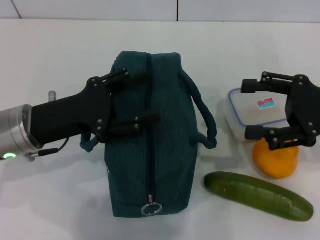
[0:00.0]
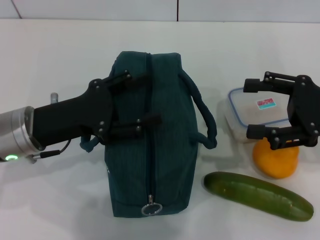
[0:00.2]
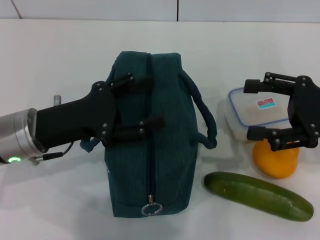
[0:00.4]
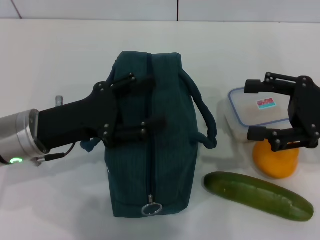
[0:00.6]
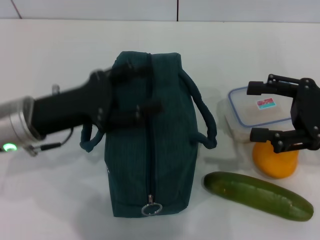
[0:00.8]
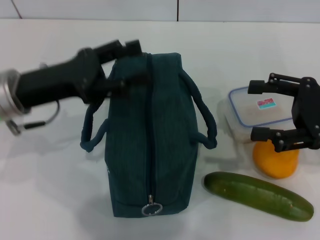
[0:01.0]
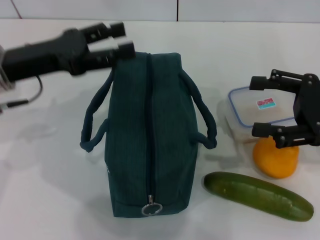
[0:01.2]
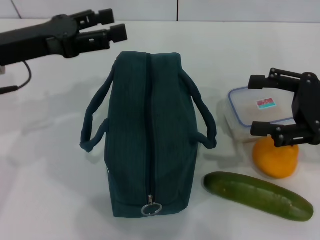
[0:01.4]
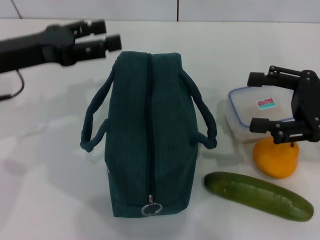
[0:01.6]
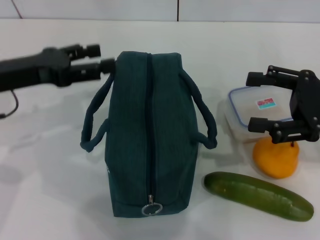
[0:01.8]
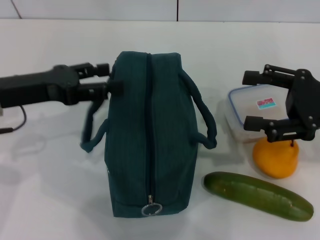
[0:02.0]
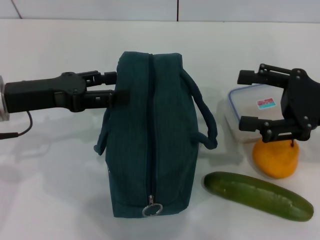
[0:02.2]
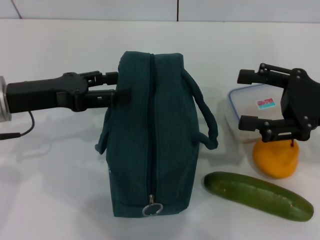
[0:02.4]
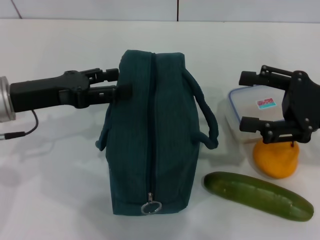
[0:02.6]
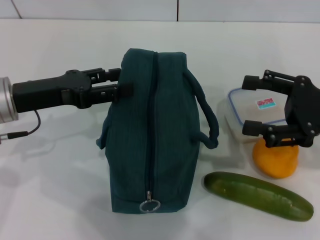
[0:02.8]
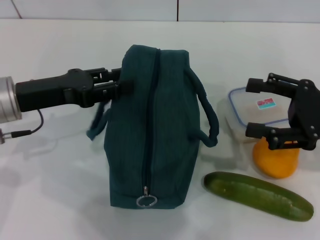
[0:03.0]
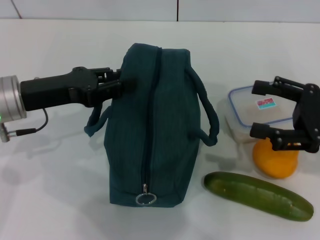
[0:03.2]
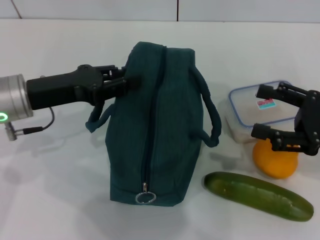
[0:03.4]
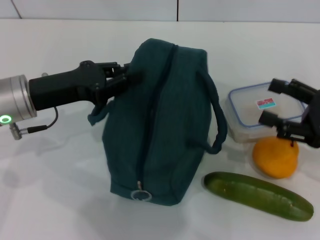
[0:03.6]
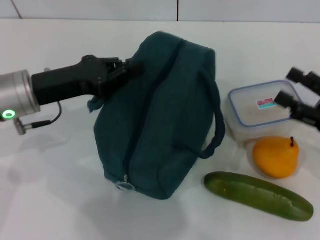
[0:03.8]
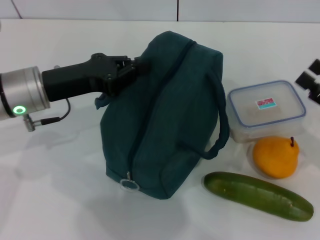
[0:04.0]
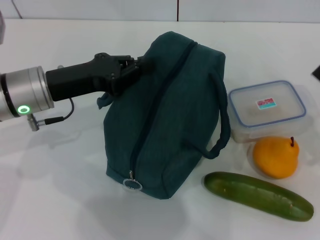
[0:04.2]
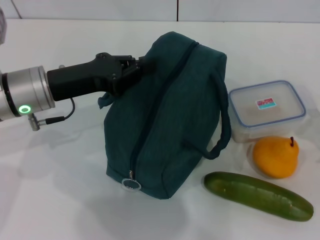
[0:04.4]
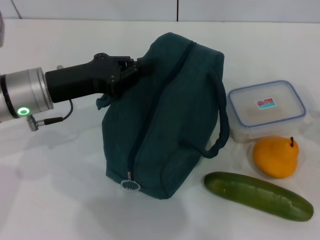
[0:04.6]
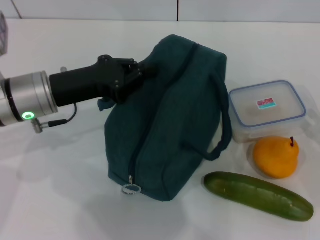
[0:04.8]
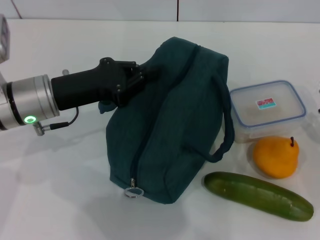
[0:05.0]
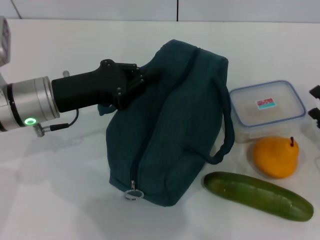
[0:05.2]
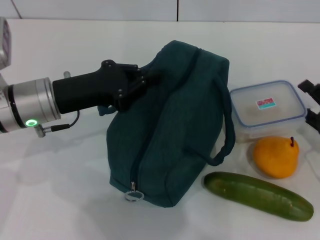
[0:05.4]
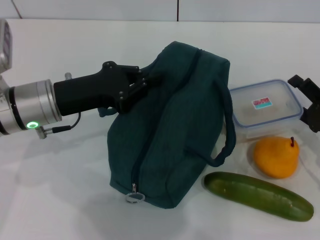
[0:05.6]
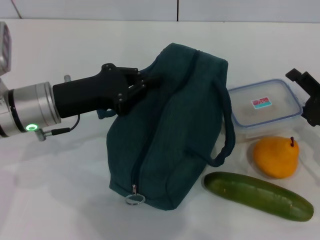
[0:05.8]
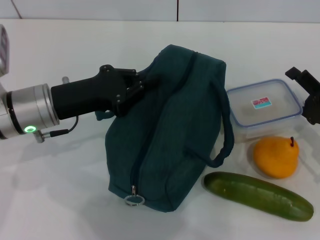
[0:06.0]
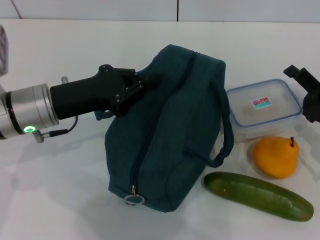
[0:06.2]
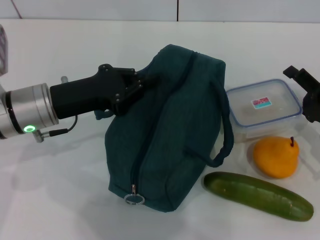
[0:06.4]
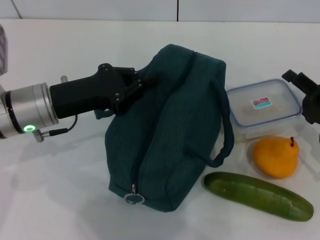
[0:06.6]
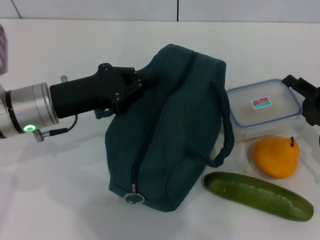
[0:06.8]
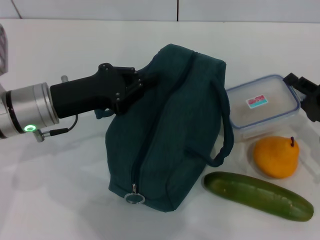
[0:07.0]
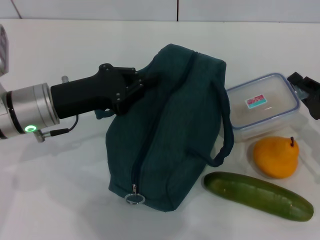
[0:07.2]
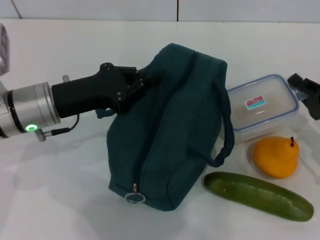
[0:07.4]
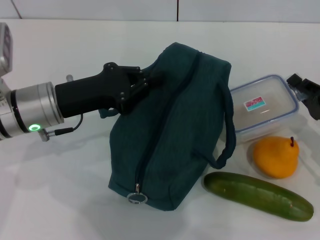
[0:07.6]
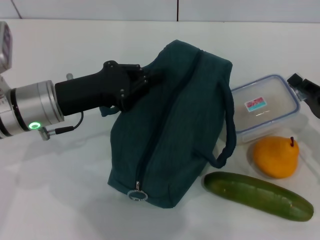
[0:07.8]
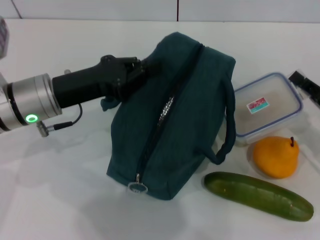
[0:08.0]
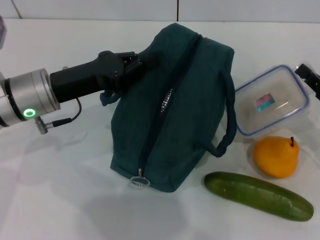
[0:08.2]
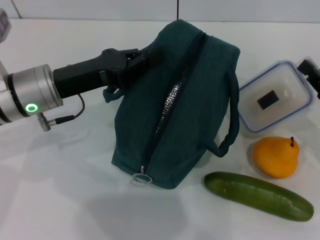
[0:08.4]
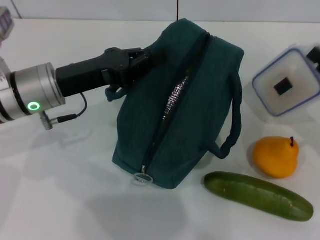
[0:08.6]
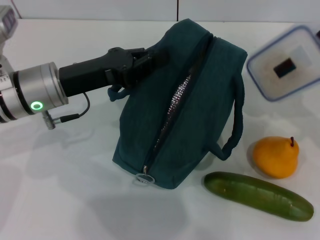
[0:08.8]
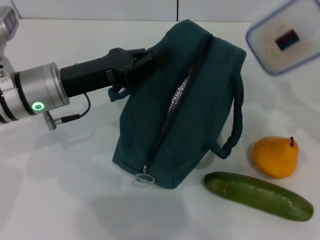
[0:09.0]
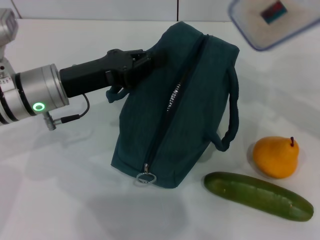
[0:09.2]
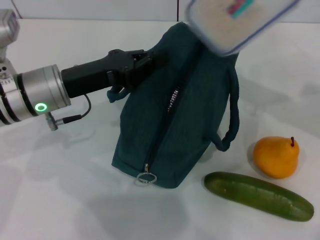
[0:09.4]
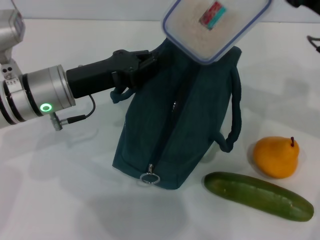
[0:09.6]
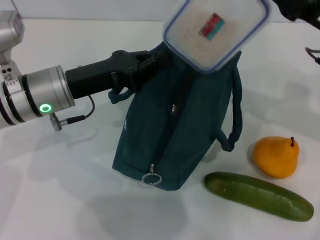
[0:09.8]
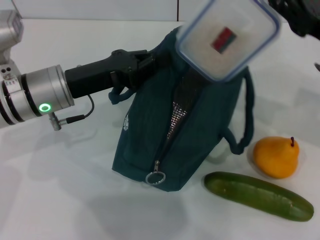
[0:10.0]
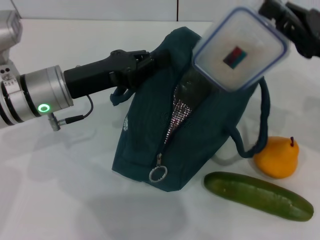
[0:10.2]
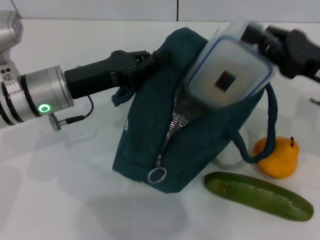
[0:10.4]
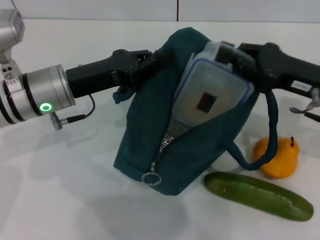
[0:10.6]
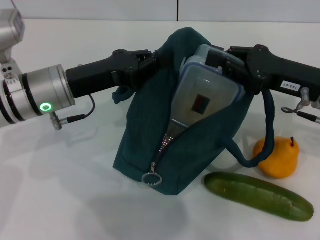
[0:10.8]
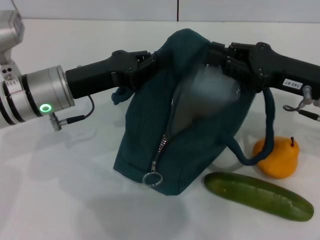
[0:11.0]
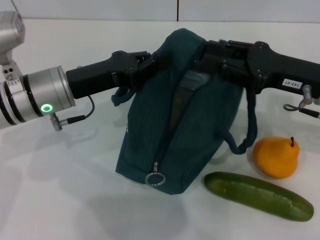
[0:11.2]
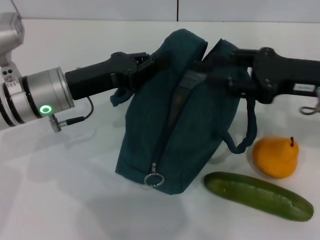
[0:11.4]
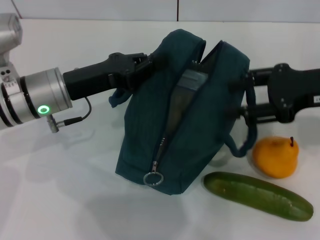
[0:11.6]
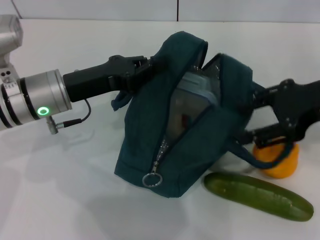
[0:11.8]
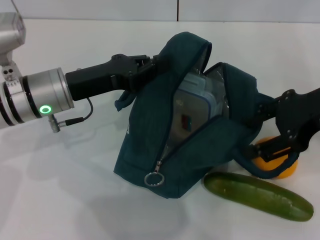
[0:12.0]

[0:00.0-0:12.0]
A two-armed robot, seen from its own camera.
Step, 0:00.0 to 0:04.2: Hold the lunch bag with your left hand.
Step, 0:04.4 to 0:07.2: Pick up the lunch box with your right hand.
Step, 0:07.4 to 0:11.0: Place the lunch box into the lunch bag with your right hand.
0:00.0 to 0:01.6: The left gripper shifts roughly 5 cm upward.
0:01.6 to 0:03.0: The left gripper ends up approximately 5 cm from where it was.
0:03.0 to 0:04.4: The left gripper closes its fingers. Meanwhile the right gripper is displaced downward and to the right by roughly 10 cm.
0:04.4 to 0:06.0: The right gripper moves roughly 5 cm.
0:06.0 to 0:07.6: The right gripper closes its fingers.
0:07.6 to 0:09.0: The right gripper shifts about 10 cm upward.
0:09.0 to 0:10.4: The right gripper is displaced to the left by some 5 cm.
0:10.4 to 0:12.0: The right gripper shifts some 10 cm upward, and opens.

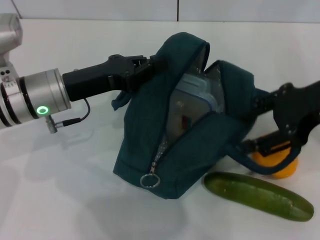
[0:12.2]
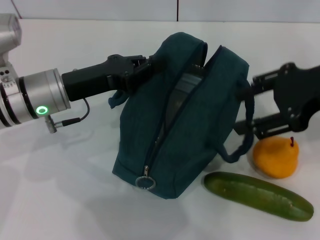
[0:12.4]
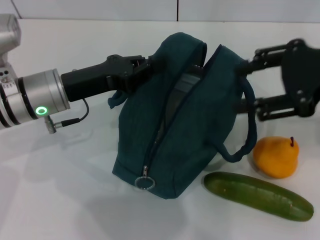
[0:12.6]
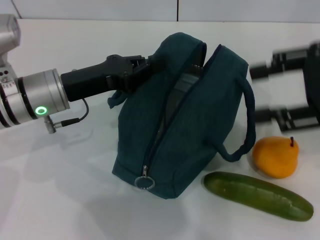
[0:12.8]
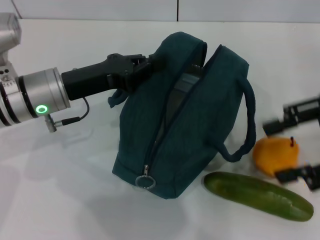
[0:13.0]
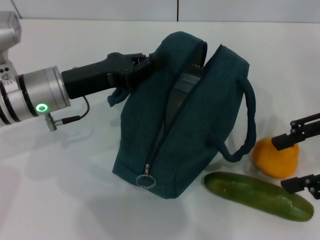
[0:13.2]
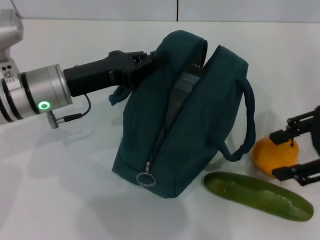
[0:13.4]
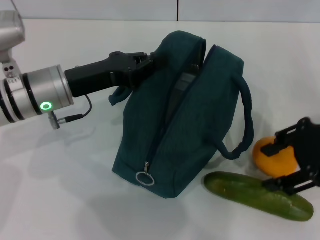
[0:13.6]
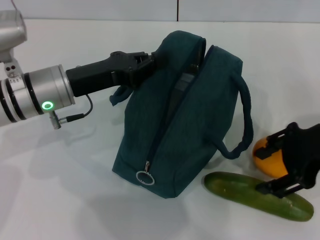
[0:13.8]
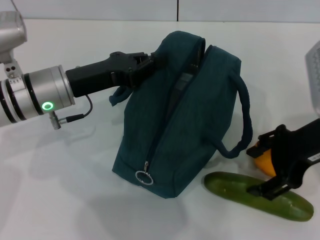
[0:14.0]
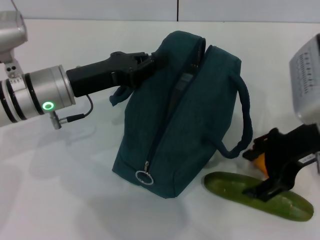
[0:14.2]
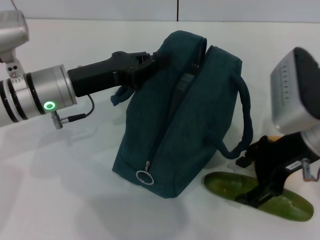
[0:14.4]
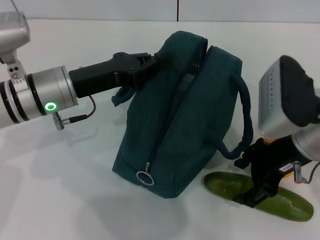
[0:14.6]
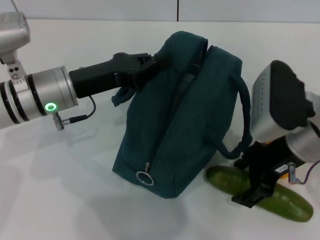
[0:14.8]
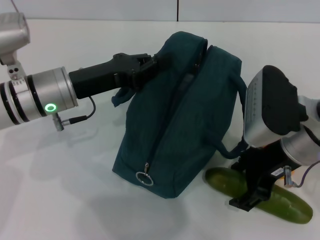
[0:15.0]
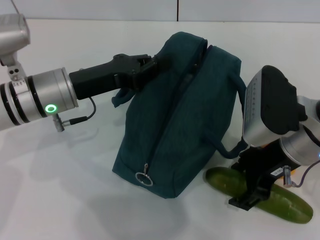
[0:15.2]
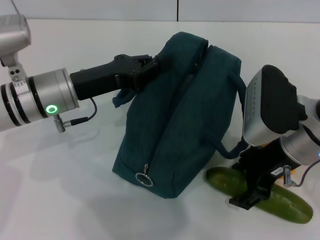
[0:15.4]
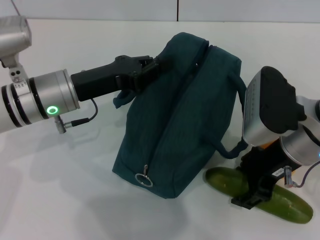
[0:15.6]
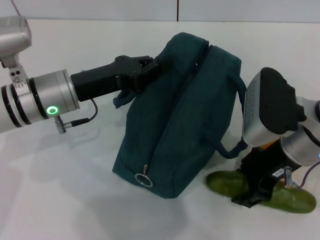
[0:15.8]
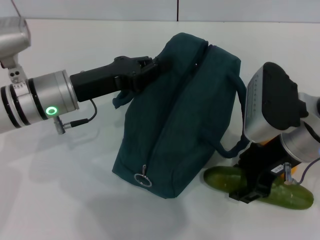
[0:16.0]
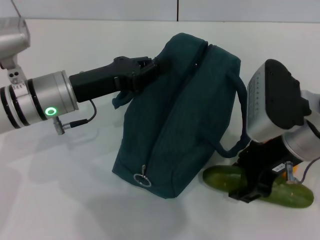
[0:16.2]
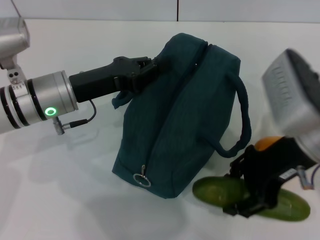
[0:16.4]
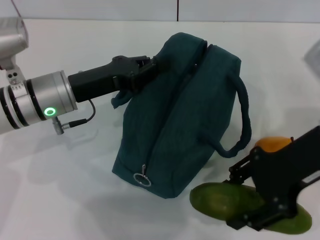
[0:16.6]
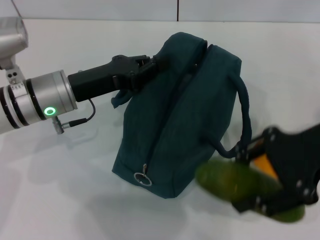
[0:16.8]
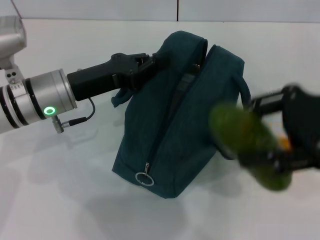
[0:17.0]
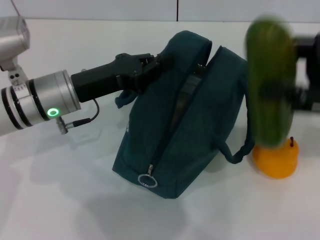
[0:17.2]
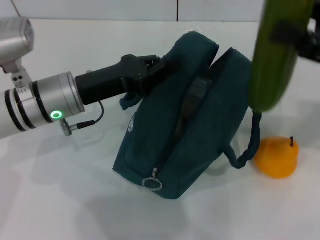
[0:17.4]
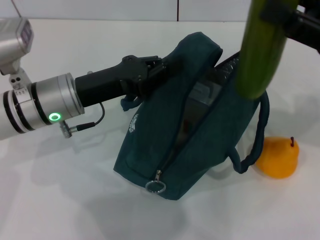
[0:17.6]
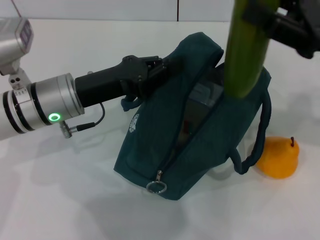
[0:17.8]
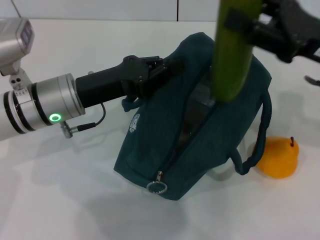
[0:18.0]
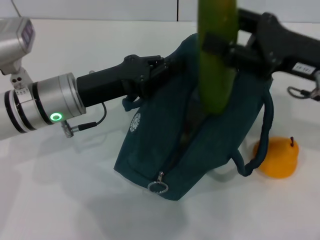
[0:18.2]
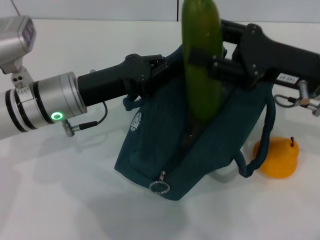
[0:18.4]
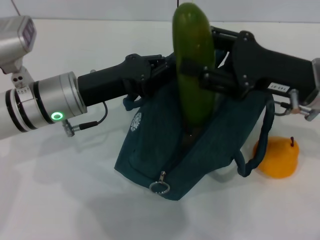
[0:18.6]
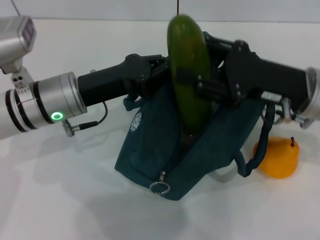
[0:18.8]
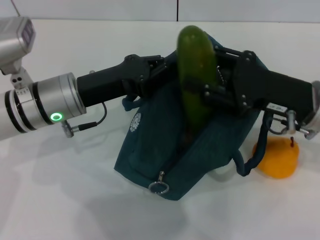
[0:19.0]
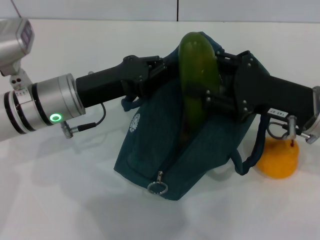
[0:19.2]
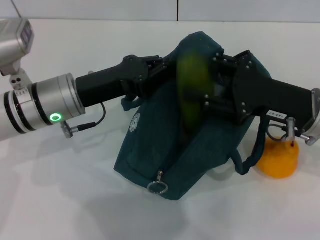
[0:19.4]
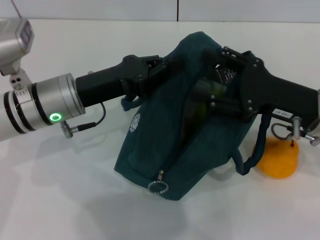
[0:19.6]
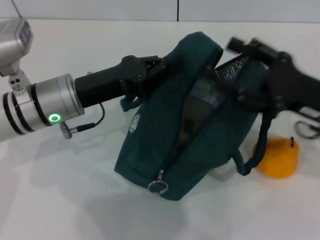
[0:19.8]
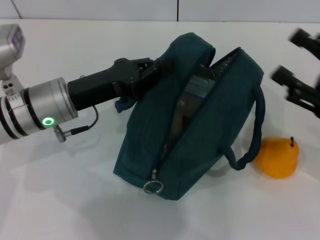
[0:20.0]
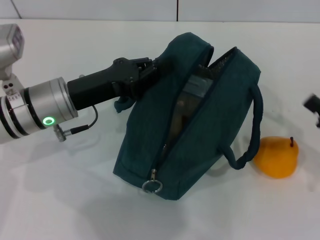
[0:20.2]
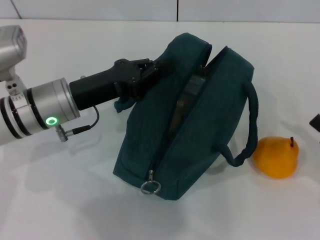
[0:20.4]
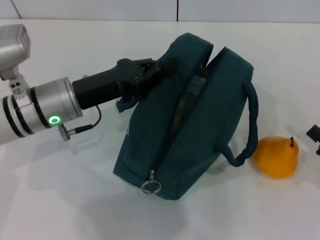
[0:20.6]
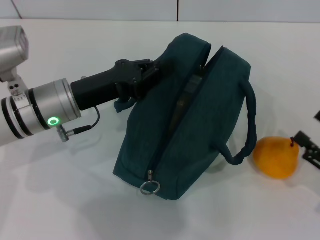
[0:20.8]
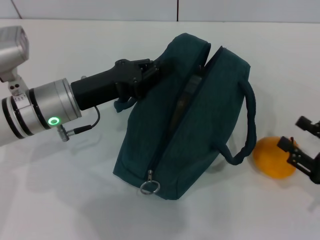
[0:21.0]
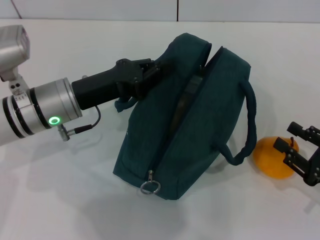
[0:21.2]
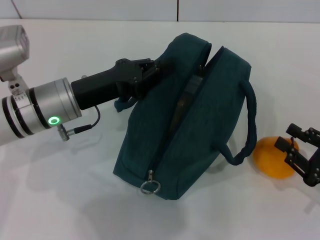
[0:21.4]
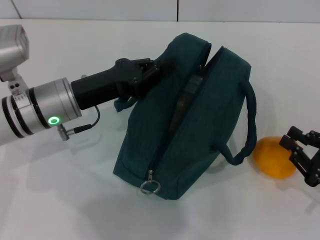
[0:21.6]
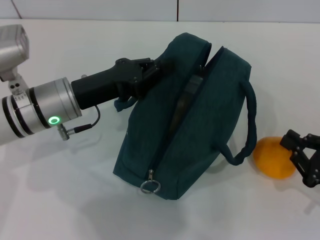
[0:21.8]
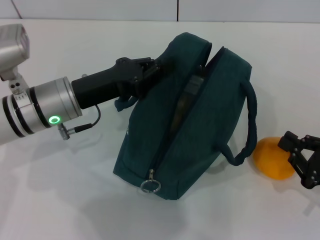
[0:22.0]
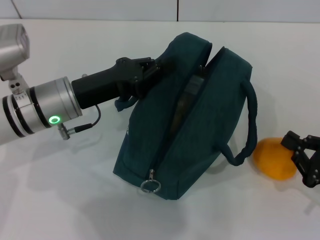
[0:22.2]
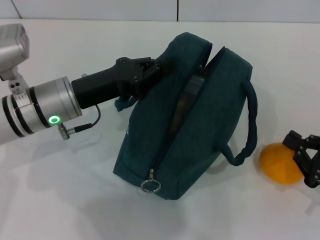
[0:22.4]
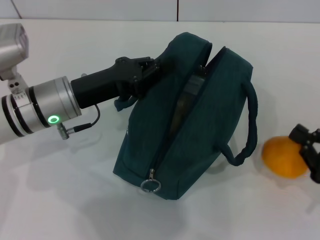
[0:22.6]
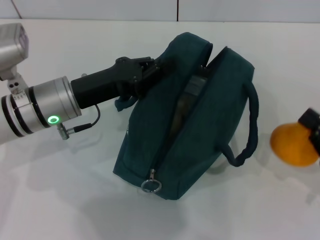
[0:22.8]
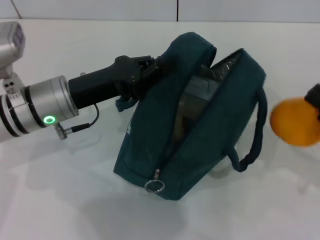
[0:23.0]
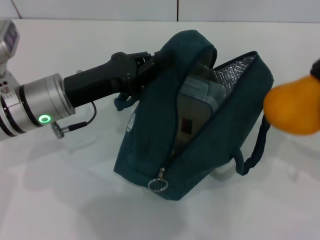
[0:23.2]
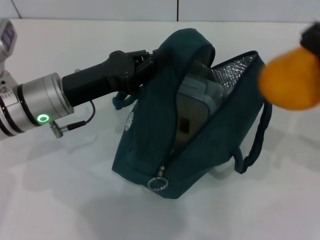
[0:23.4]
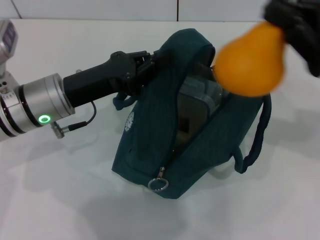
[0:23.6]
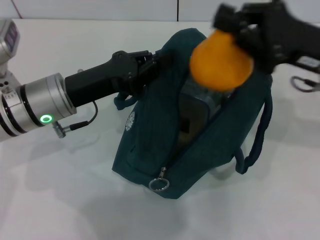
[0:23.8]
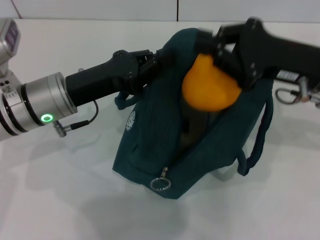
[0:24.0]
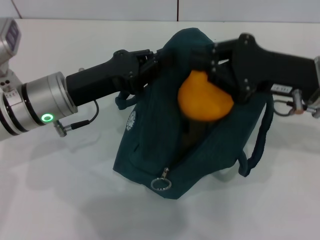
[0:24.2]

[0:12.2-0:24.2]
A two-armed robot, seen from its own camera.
Step, 0:12.2 to 0:16.0: Pick up the cucumber with your right hand.
Step, 0:16.2 to 0:19.4: Put the cucumber into the lunch bag with your right hand.
Step, 0:19.8 to 0:22.2: Grab the pear with your right hand.
0:13.8 to 0:15.2: The right gripper heads to the left and downward, covering some 10 cm.
0:15.2 to 0:16.6: The right gripper shifts some 5 cm upward.
0:16.6 to 0:18.2: The right gripper shifts about 5 cm forward, and travels to the right and back again, approximately 10 cm each way.
0:18.2 to 0:19.8: The right gripper moves approximately 5 cm.
0:19.8 to 0:21.2: The right gripper shifts some 15 cm downward, backward and to the right.
0:21.2 to 0:22.6: The right gripper closes.
0:22.6 to 0:24.2: The right gripper shifts some 20 cm forward, upward and to the left.
